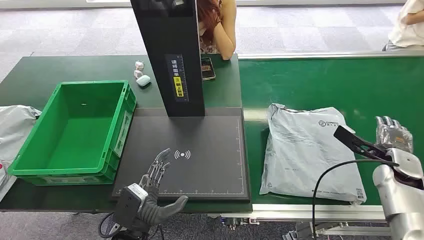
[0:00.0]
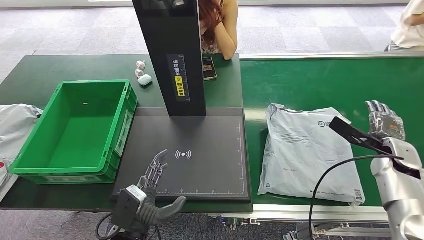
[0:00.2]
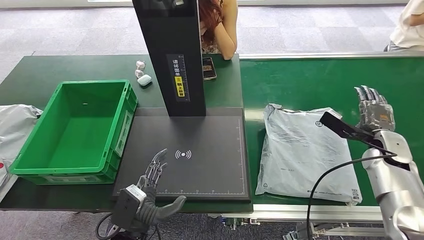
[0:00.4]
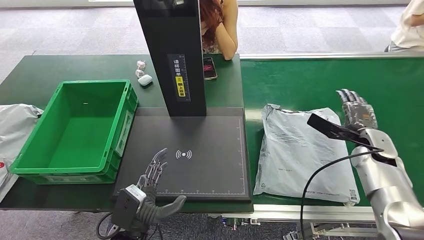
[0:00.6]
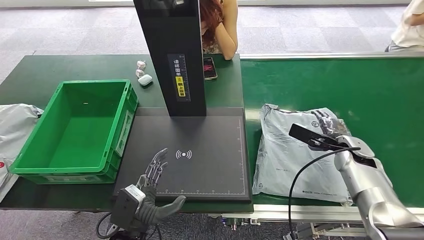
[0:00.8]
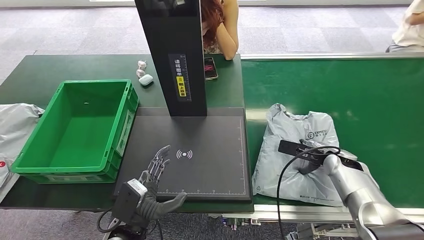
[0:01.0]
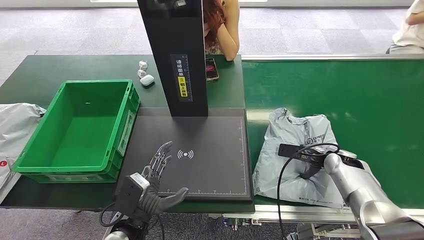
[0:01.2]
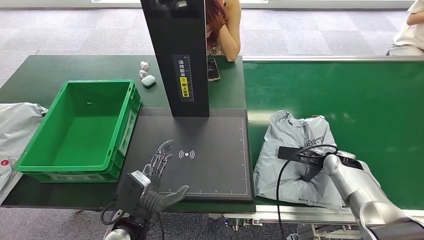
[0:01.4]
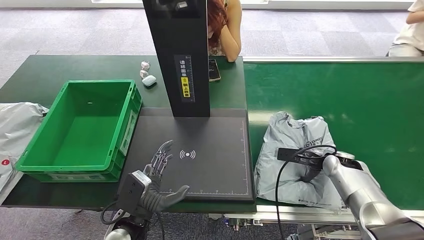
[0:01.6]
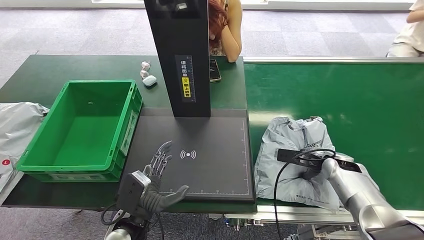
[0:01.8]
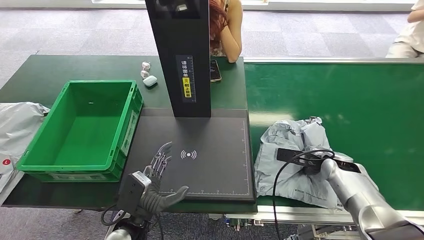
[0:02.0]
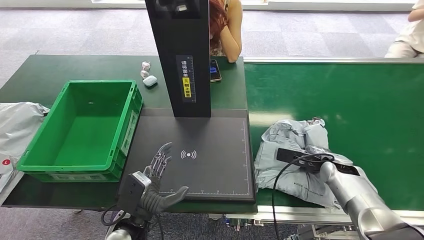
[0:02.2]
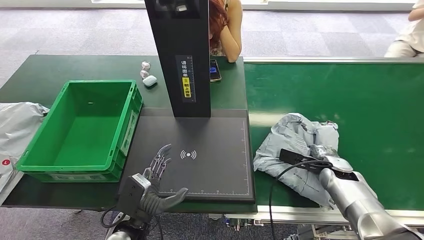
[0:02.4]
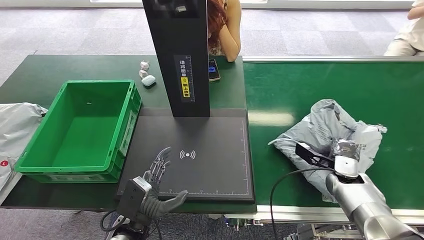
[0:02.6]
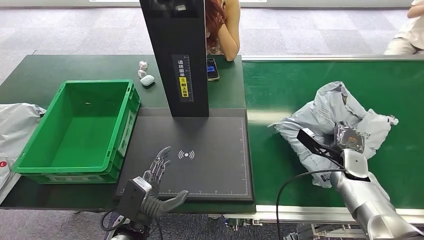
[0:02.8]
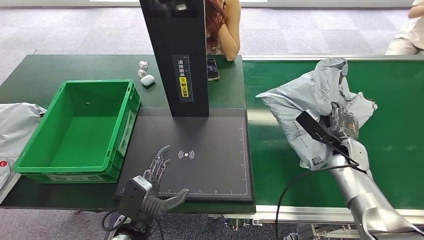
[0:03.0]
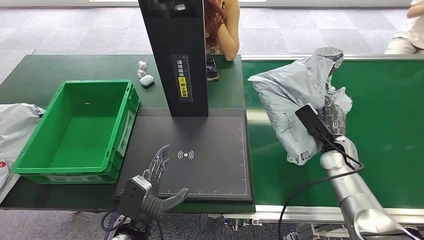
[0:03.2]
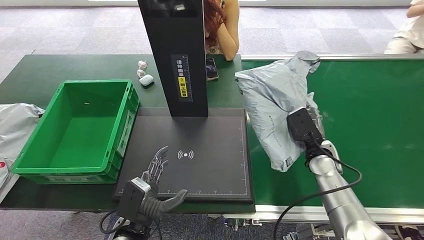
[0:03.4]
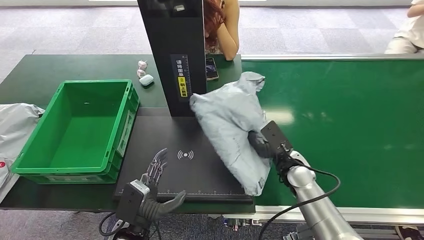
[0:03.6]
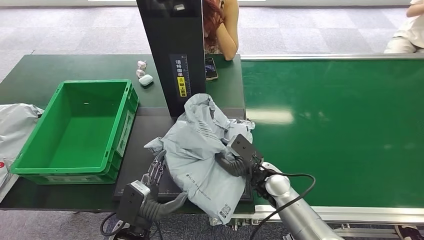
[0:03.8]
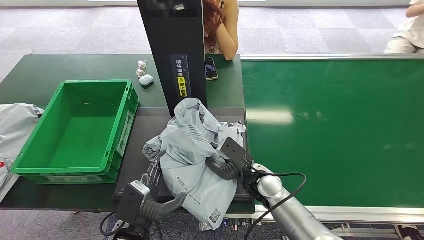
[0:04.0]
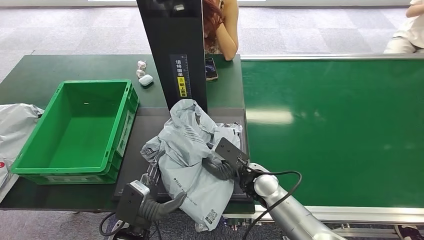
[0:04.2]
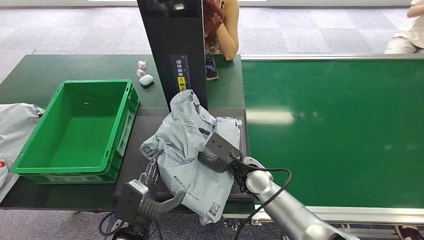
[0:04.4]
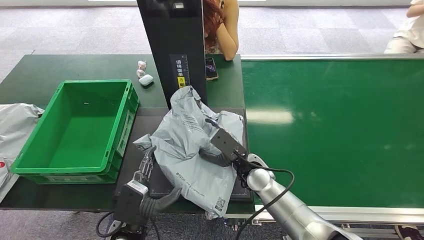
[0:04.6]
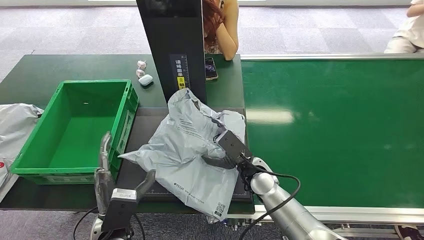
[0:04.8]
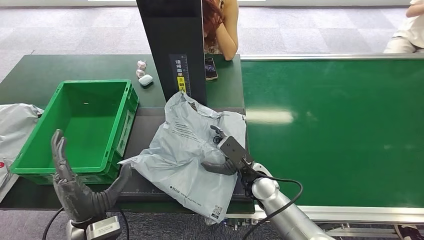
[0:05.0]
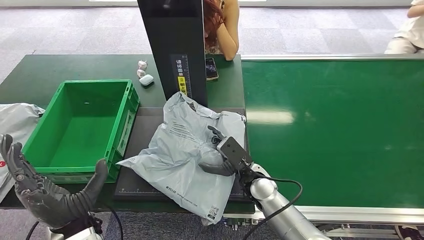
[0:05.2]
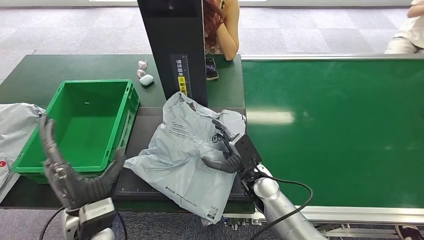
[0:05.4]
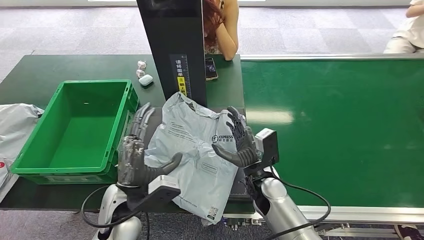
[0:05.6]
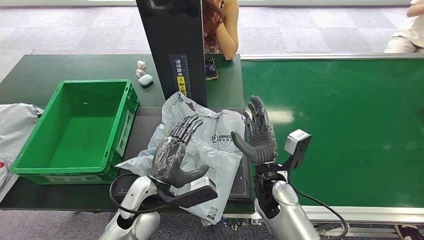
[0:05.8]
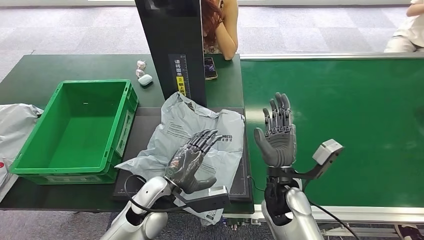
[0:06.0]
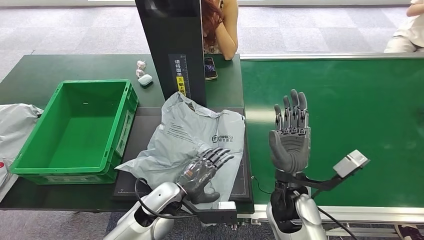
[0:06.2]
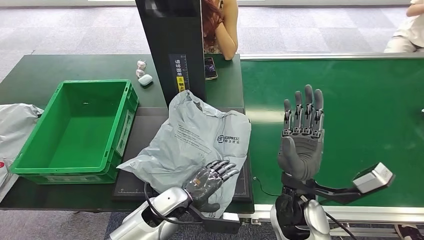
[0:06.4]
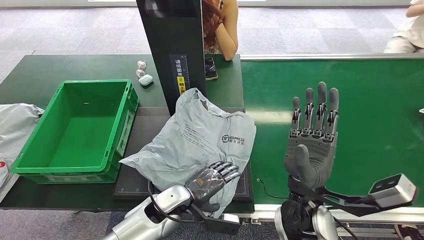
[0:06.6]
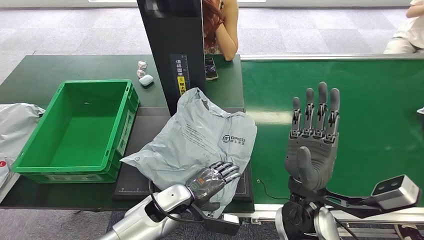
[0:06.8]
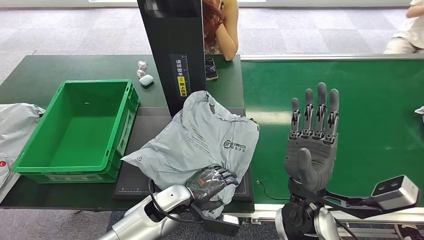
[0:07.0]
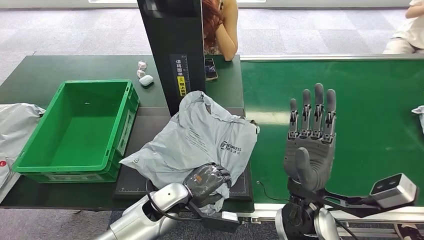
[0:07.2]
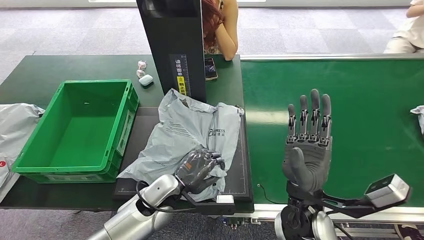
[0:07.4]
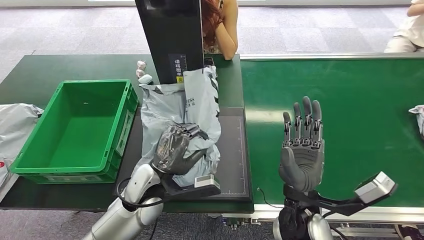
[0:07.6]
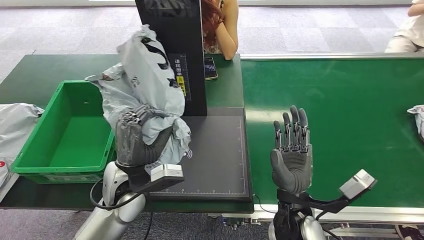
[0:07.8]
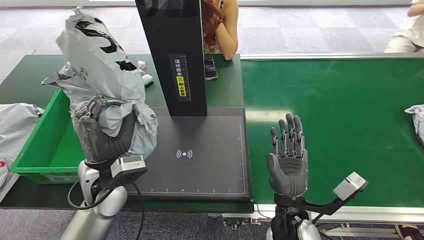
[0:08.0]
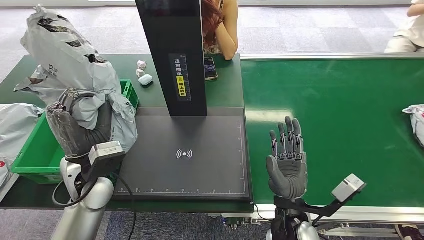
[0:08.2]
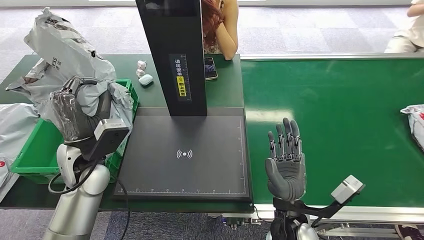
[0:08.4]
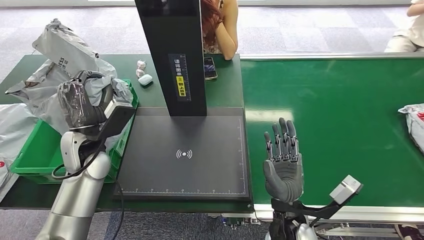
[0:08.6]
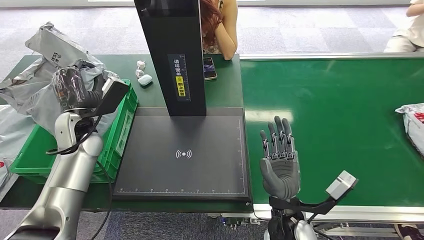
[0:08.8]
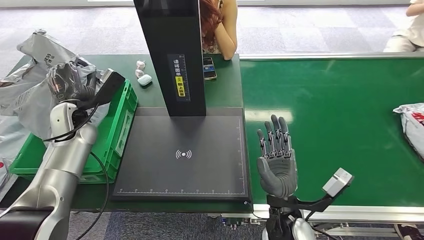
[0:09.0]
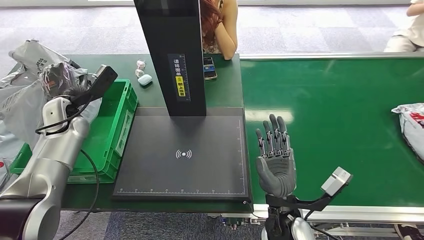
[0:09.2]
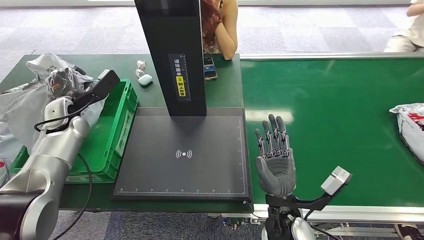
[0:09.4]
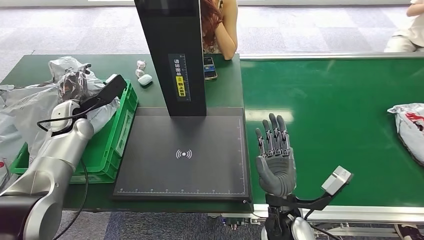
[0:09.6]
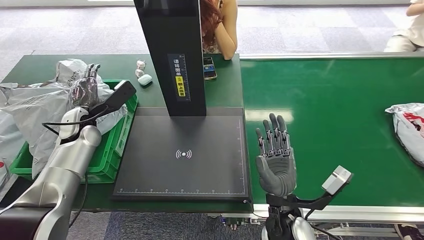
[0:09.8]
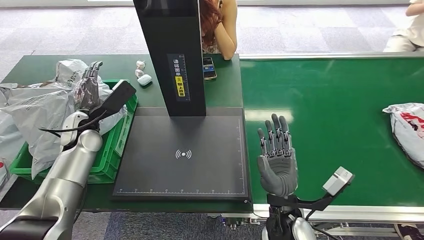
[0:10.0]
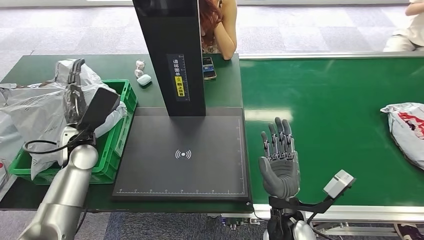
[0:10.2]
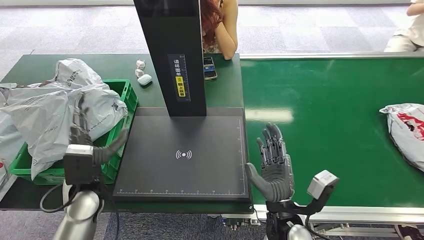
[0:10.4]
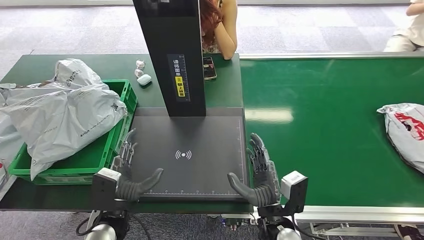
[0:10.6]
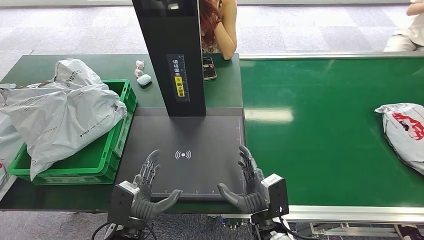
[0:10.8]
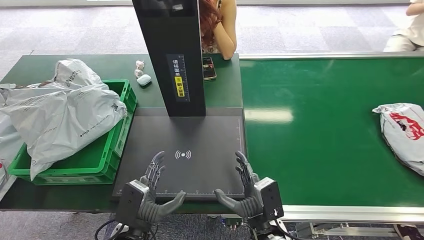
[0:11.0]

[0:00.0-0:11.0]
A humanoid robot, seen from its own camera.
Task of the whole recording: Weigh the package on the weighing device and place it in the left basket.
Step, 0:00.0 to 0:03.2: Pick up the package from the conveyor belt.
Step, 0:03.4 to 0:05.6: Place the package onto the inbound machine.
Step, 0:05.8 to 0:08.2: Pick up the package from the inbound machine.
Step, 0:08.4 to 0:11.0: Place the package into the parcel locker.
0:04.8 to 0:06.2: The right hand goes roughly 10 cm backward and upward, while the left hand goes approximately 10 cm to the right and forward.
